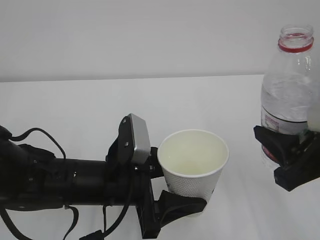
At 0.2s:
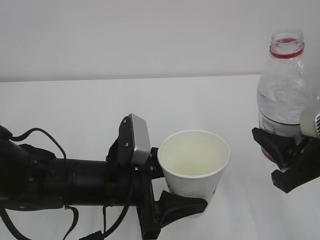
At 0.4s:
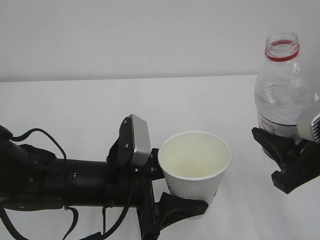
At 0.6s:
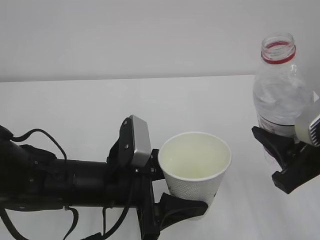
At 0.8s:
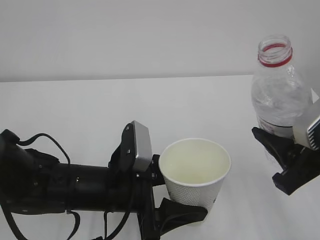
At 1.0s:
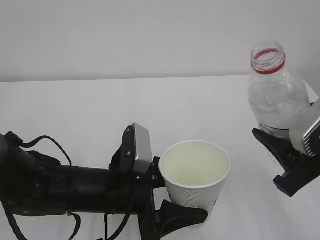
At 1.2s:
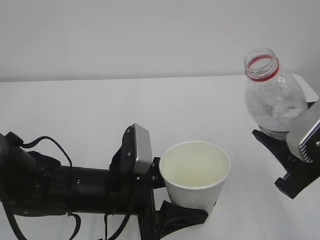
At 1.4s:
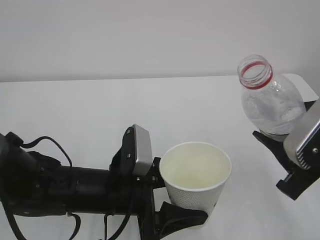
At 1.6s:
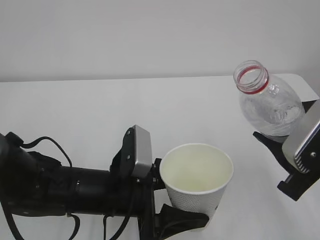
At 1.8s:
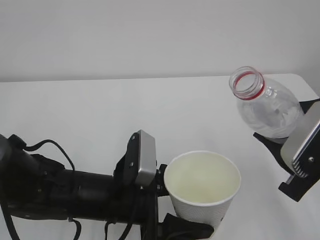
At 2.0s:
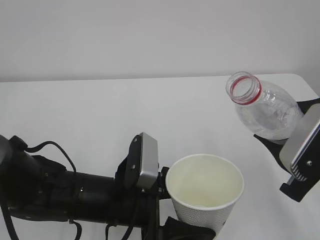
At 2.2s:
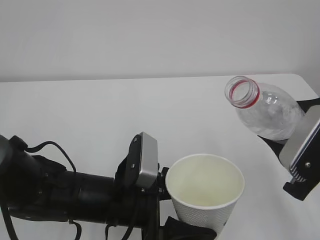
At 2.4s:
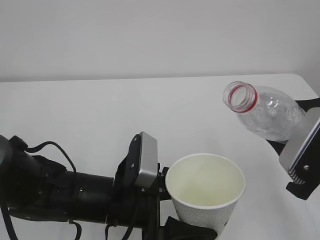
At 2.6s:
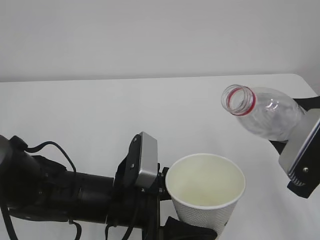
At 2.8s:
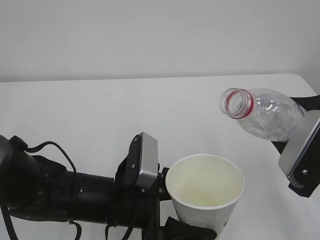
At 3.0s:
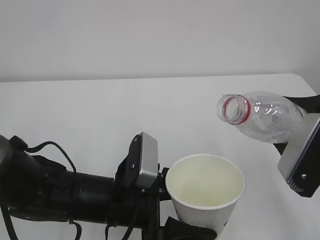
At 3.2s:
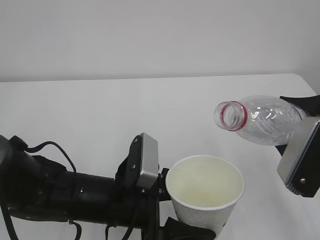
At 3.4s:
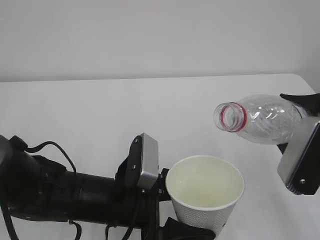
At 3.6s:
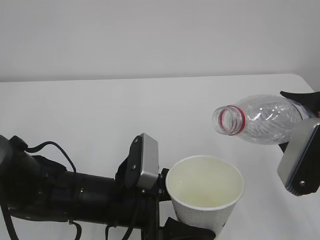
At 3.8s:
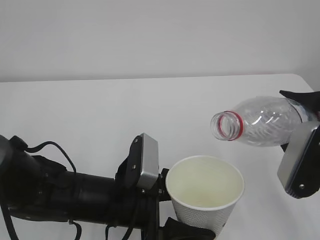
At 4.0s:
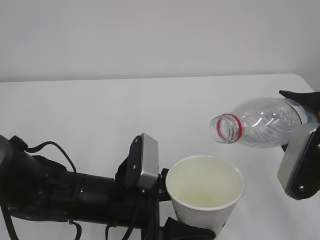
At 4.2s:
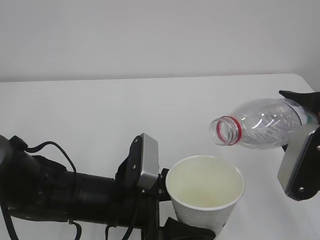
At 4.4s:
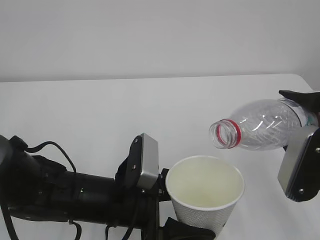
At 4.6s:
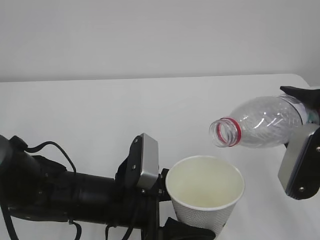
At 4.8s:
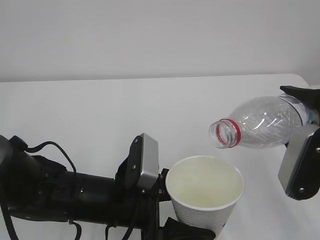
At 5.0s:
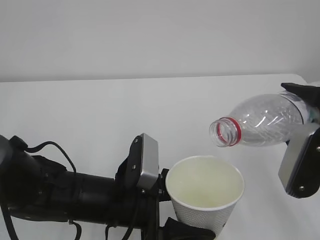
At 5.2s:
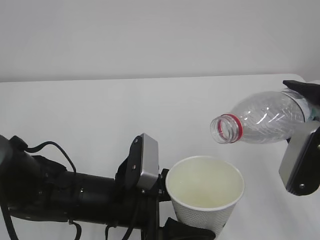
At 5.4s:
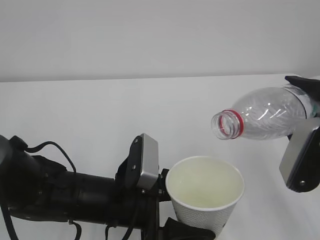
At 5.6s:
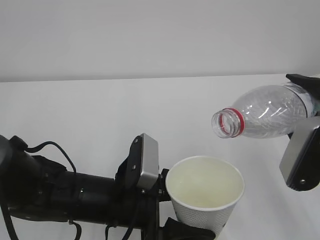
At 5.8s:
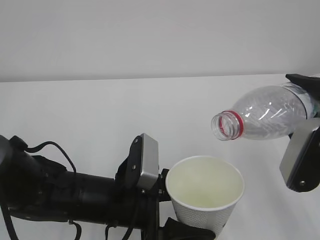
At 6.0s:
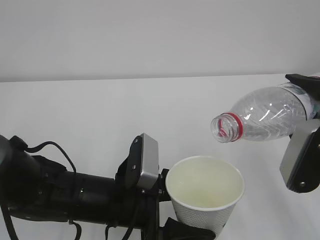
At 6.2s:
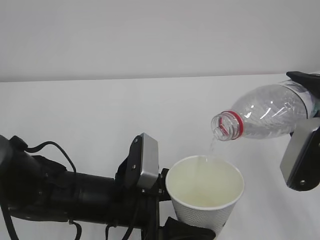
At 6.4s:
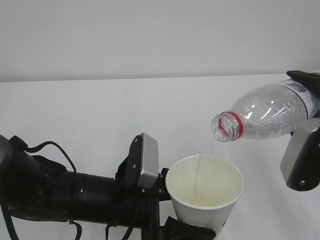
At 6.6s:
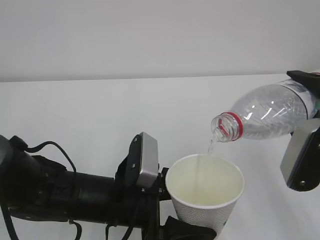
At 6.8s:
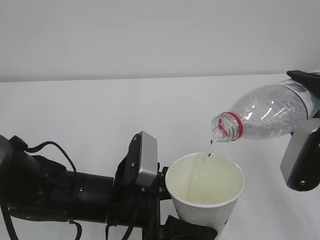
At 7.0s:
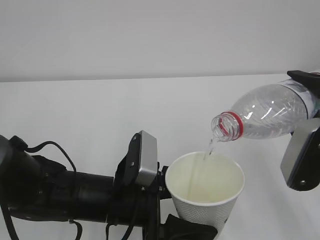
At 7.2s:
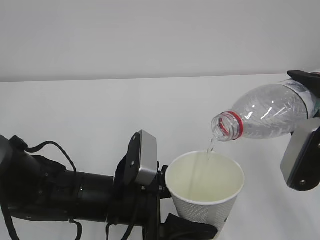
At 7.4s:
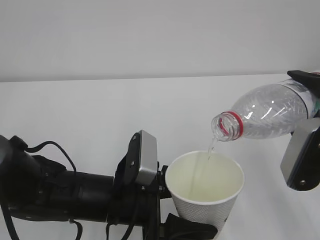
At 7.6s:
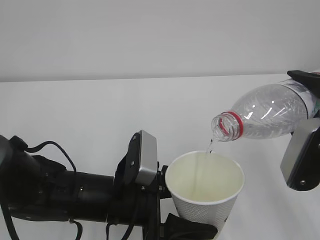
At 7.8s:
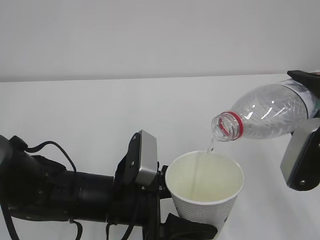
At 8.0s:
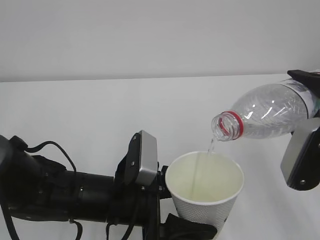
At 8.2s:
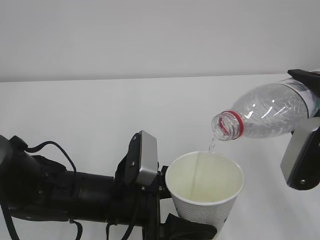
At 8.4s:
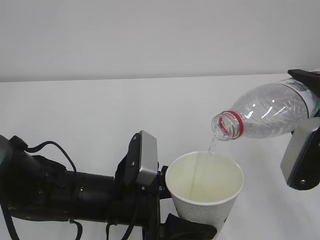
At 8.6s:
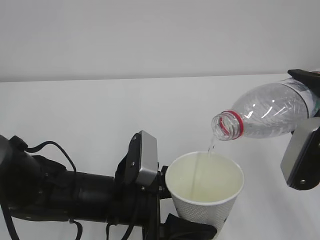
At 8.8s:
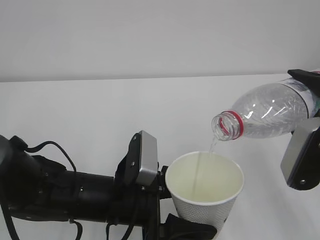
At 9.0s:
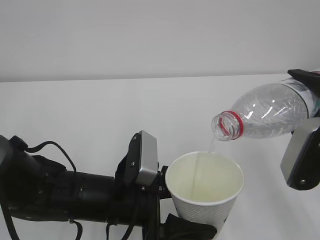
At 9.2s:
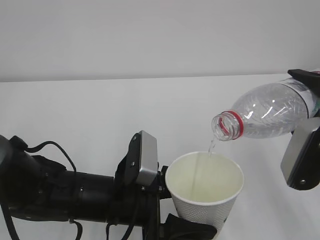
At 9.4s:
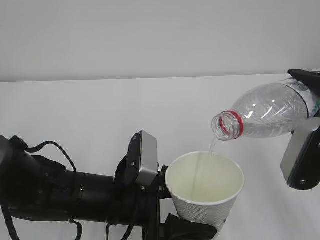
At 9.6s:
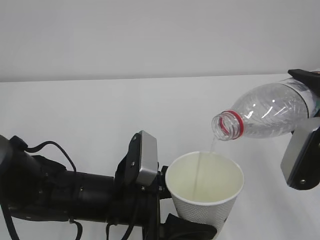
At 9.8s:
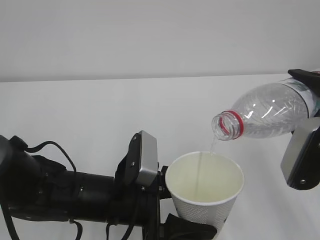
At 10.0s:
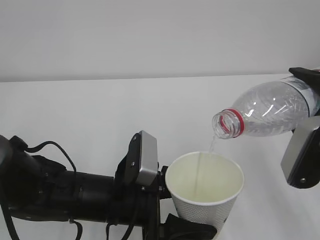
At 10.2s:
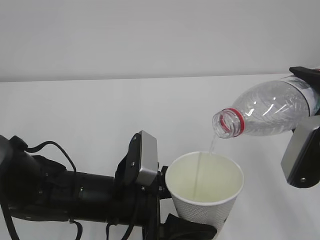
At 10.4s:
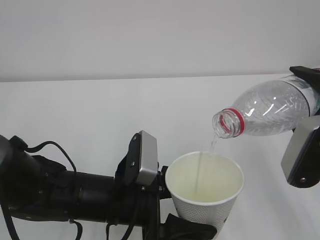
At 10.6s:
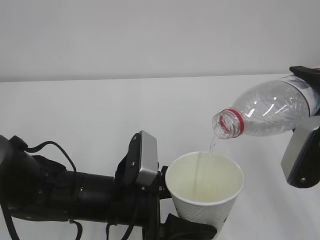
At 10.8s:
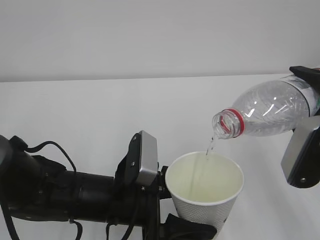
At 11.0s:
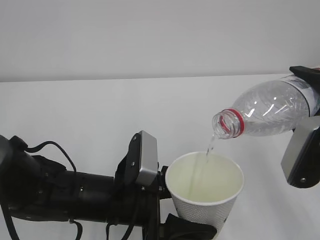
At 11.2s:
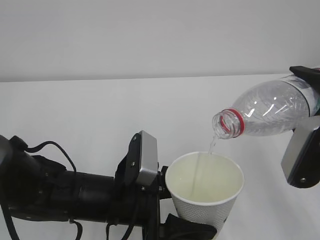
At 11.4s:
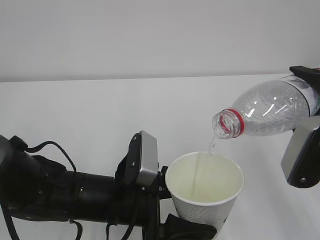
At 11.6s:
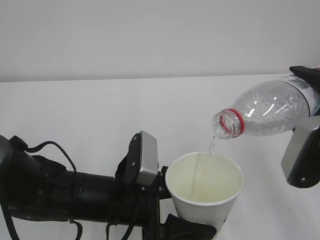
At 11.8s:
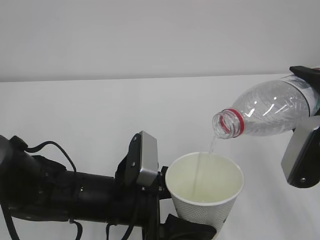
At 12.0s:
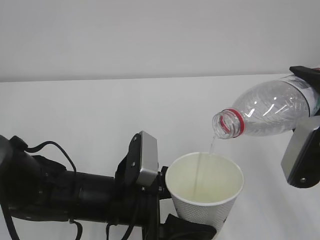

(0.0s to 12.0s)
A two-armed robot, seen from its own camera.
1.6s - 3.0s: There are only small adjustments of the grippers.
3.0s - 4.4s: The grippers move only a little.
4.4s - 6.0s: The grippers make only small movements.
6.0s - 12.0s: The two grippers keep their place.

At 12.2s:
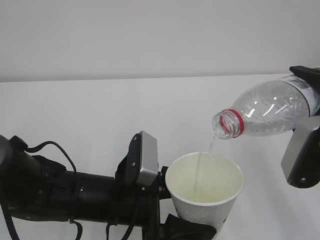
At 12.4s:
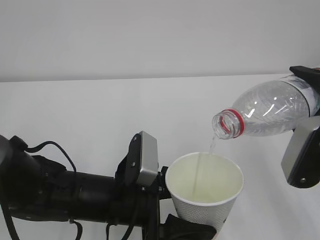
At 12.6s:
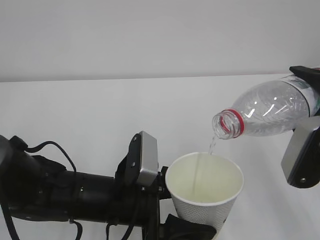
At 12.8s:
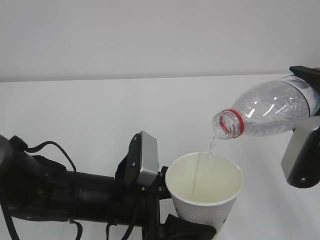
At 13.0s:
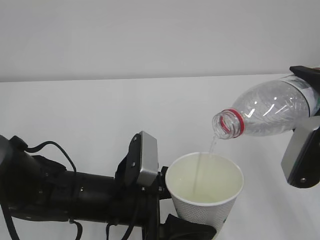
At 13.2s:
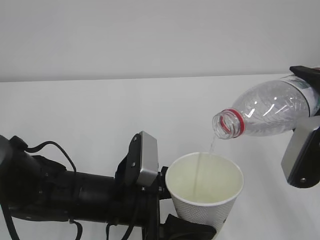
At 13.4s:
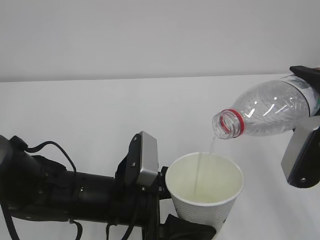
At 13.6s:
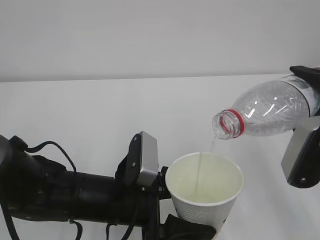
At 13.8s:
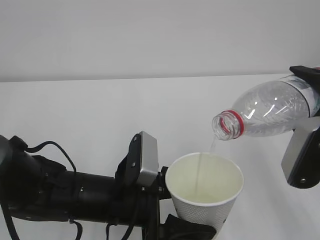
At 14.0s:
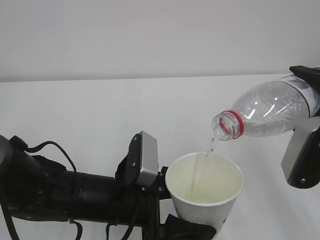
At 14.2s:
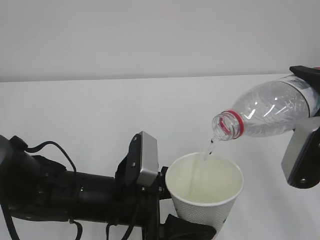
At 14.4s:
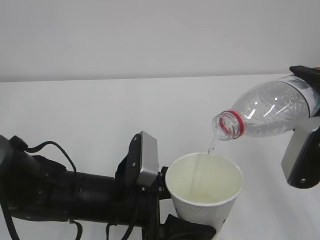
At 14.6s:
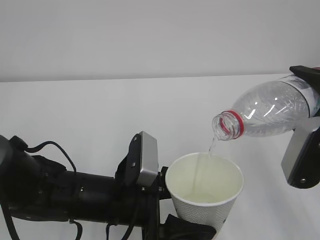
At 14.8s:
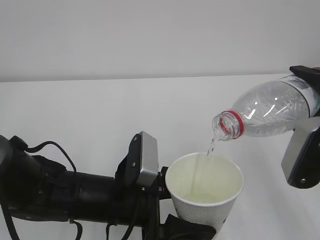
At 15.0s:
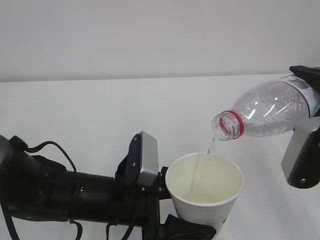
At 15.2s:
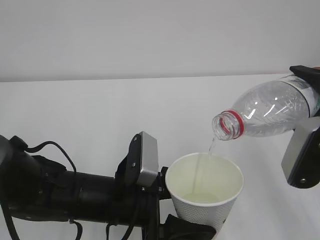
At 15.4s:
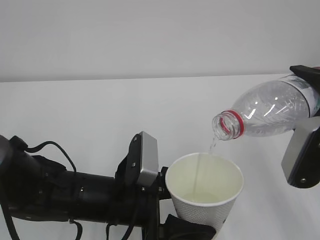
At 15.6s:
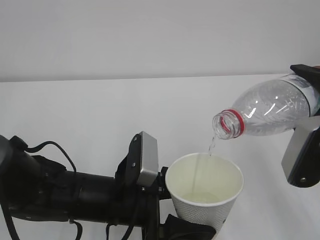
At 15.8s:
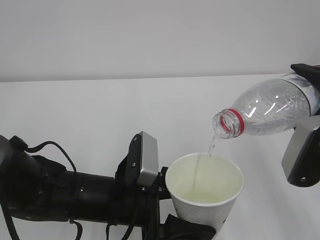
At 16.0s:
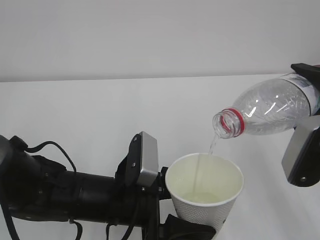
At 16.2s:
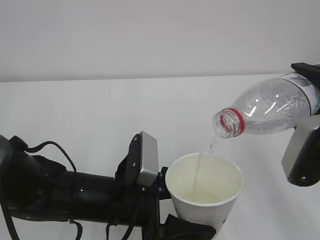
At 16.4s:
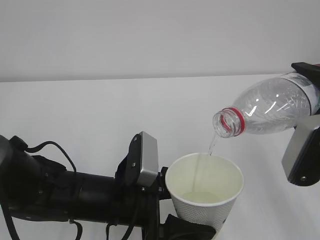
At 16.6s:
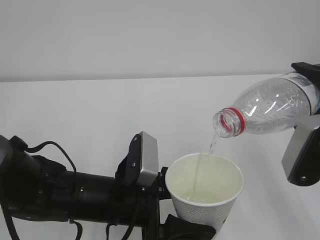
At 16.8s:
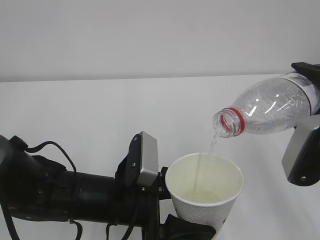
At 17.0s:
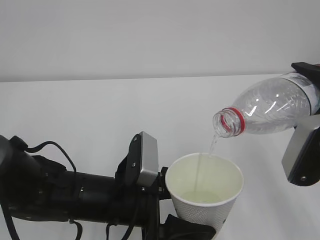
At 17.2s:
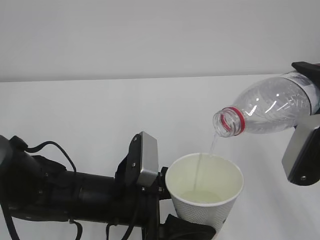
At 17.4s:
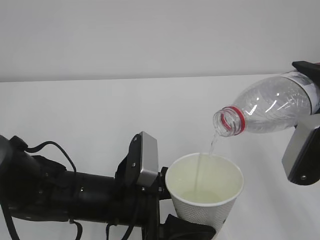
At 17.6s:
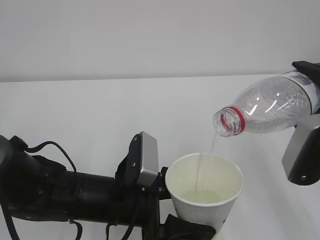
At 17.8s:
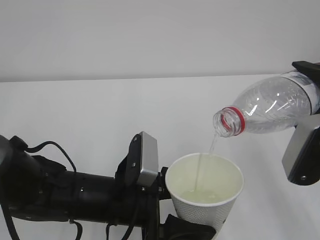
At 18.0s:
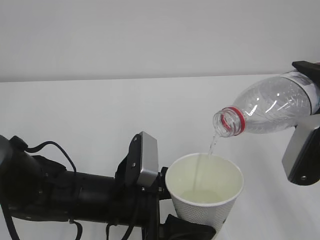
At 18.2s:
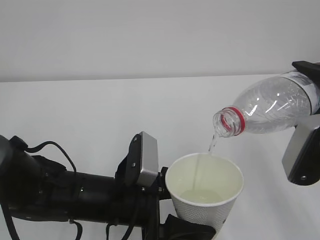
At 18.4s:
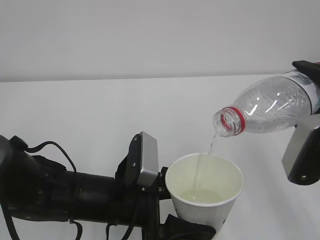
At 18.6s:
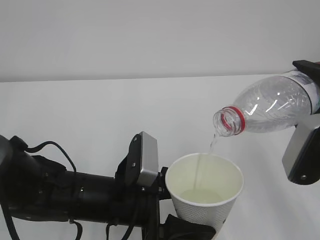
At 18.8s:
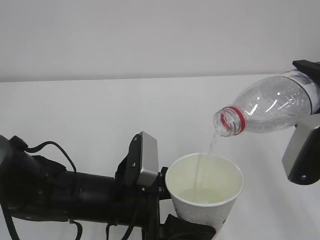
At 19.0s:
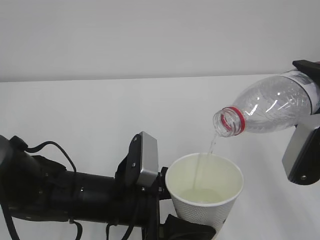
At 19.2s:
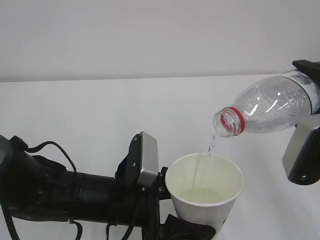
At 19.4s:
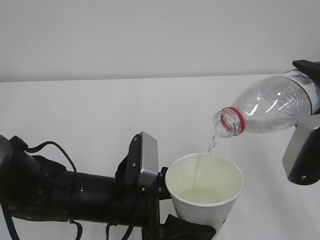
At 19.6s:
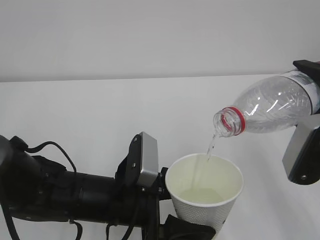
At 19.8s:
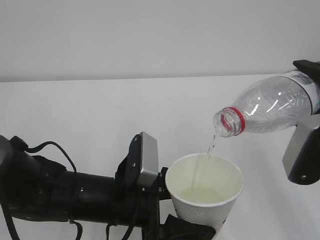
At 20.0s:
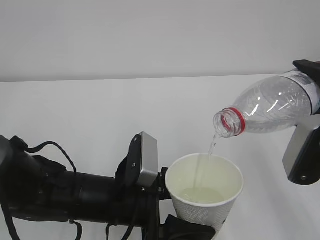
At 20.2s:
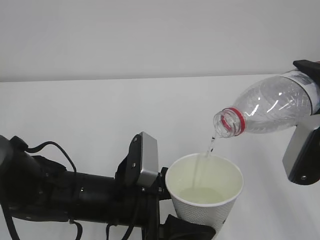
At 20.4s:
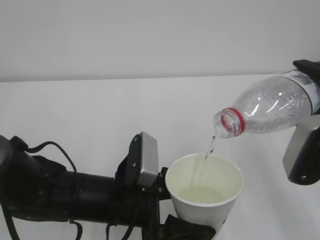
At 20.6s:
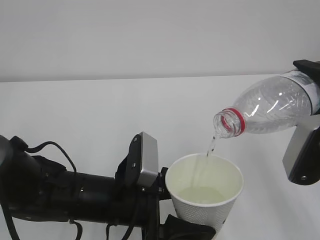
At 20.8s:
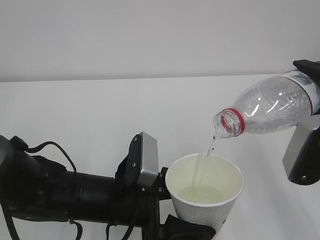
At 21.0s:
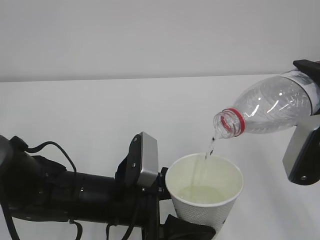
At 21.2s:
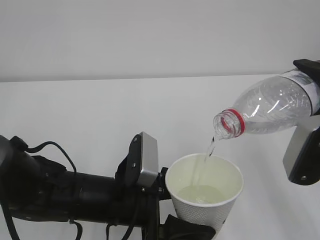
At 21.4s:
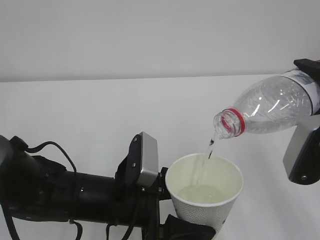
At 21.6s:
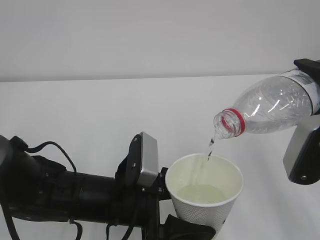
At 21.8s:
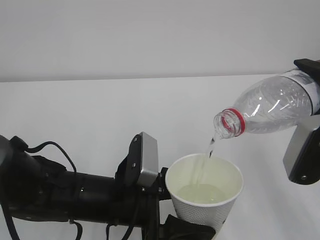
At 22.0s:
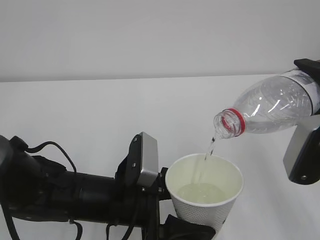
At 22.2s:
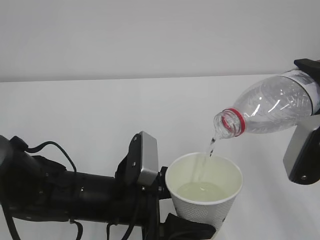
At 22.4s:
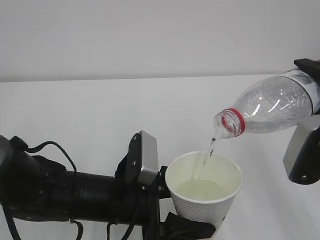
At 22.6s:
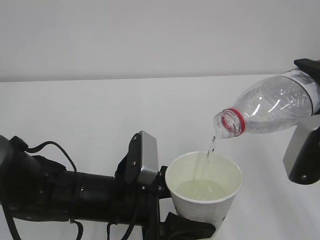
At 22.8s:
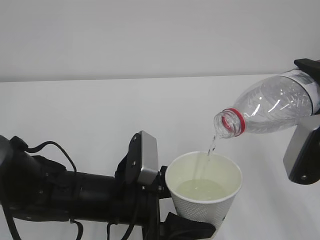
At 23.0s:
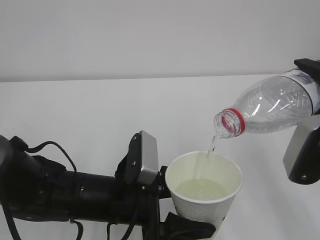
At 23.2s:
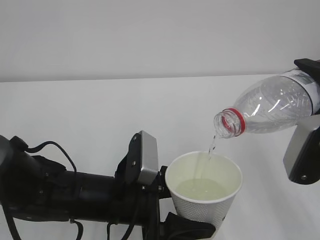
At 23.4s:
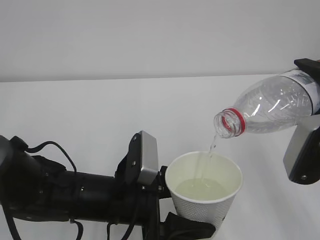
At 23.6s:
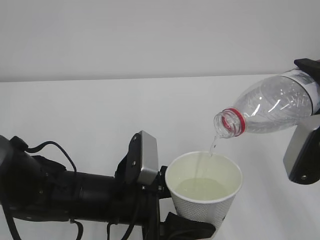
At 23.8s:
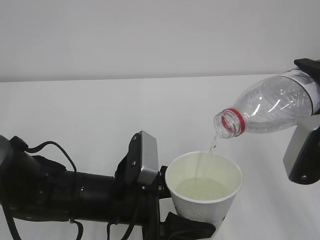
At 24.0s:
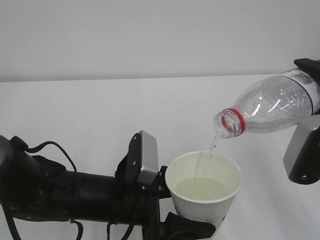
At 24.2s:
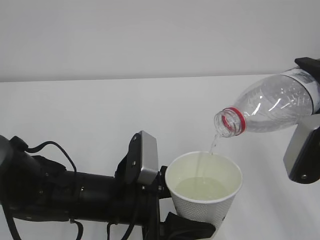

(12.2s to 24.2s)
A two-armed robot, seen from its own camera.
12.2s - 22.6s: The two grippers keep their place.
22.6s - 24.2s: Both grippers stay put.
